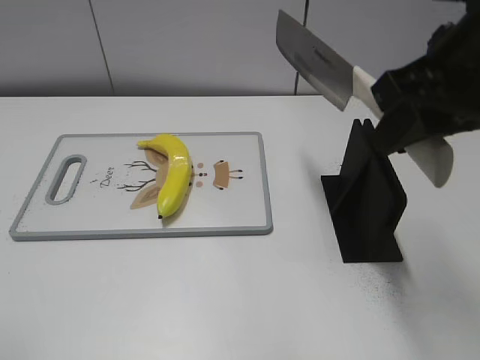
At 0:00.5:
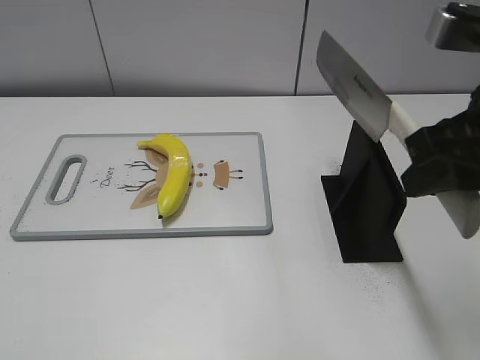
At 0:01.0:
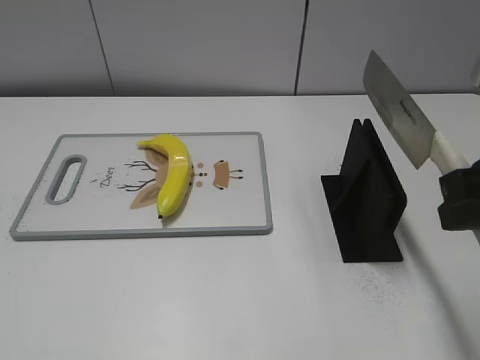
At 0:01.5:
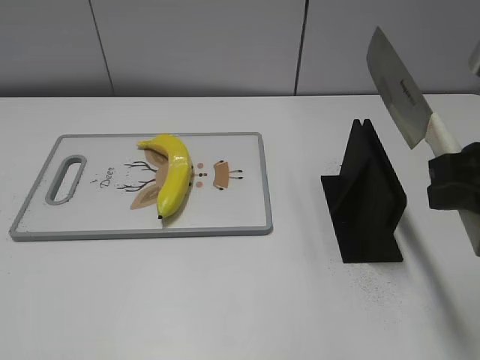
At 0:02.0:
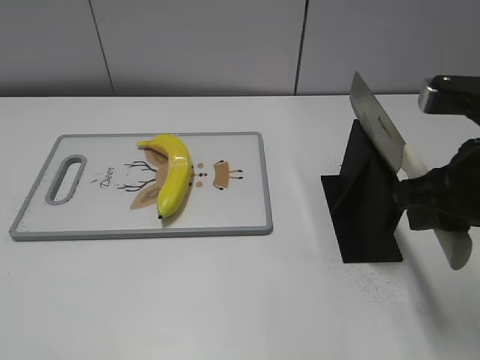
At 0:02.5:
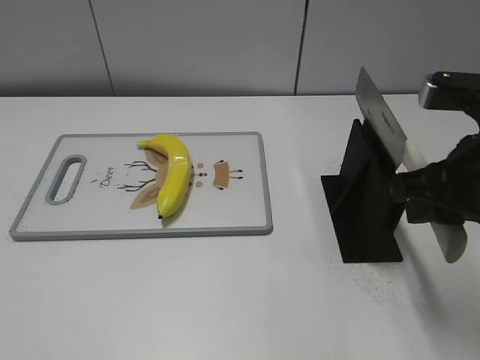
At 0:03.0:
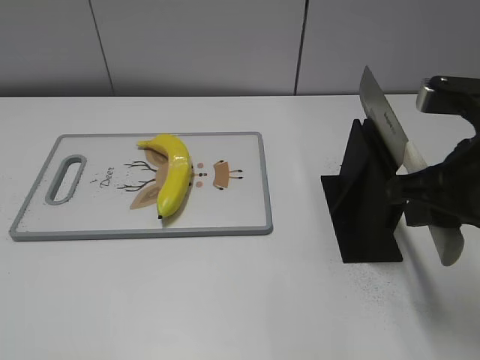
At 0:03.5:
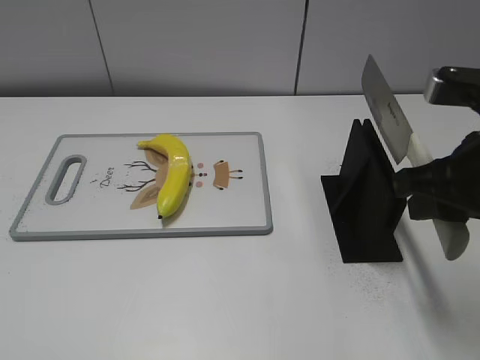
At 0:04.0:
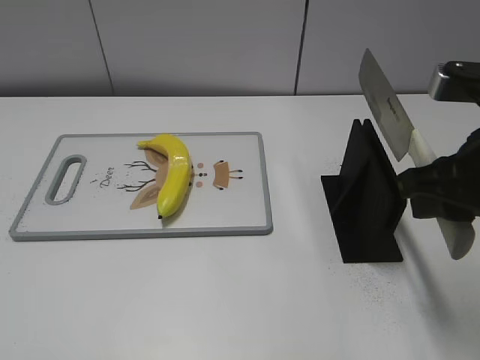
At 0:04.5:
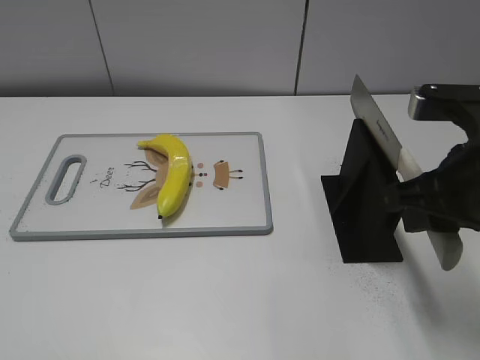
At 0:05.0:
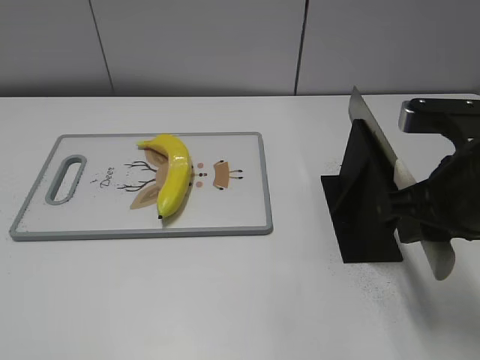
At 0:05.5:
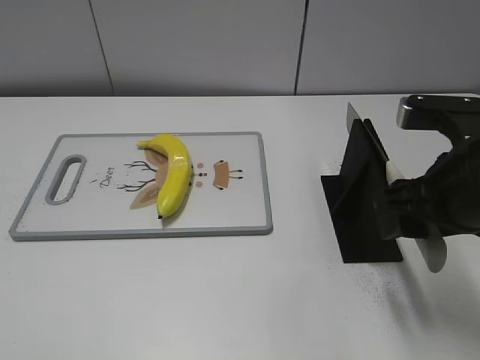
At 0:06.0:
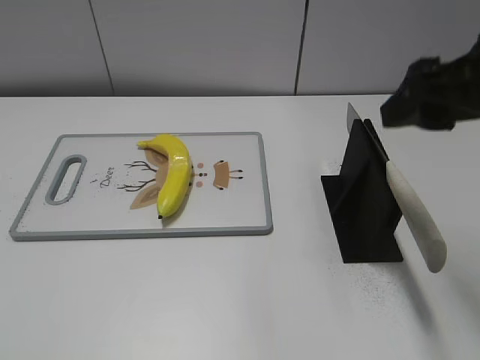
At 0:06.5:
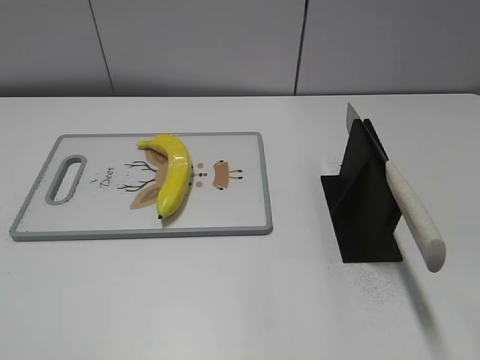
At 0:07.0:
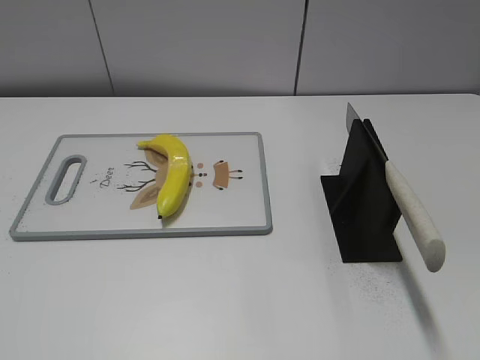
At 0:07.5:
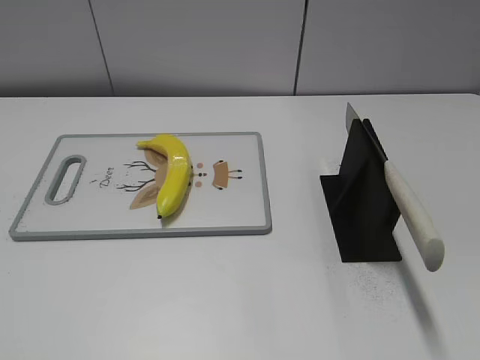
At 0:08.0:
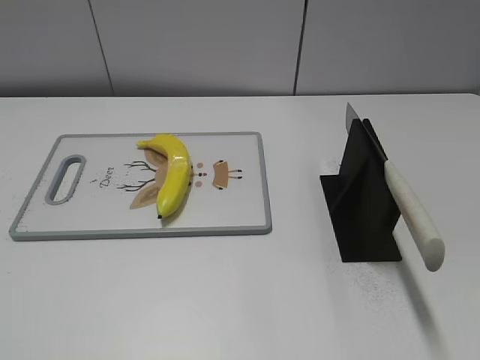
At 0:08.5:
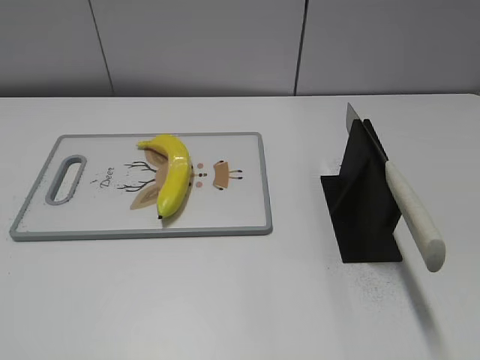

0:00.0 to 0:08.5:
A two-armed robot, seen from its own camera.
Task of the whole recording: cut plastic banana.
Step, 0:00.5 to 0:08.5: Place the knife on the storage rack with your right hand.
0:00.0 to 0:02.0: The right gripper is displaced downward by some 10 cm. The left gripper heads backward and downward, covering roughly 10 cm.
0:02.0 to 0:04.0: There are only small adjustments of the grippers.
0:04.0 to 0:06.5: The right gripper is displaced upward and backward by approximately 15 cm, and opens up.
